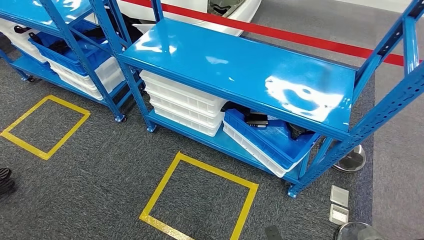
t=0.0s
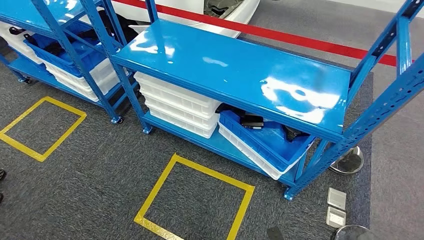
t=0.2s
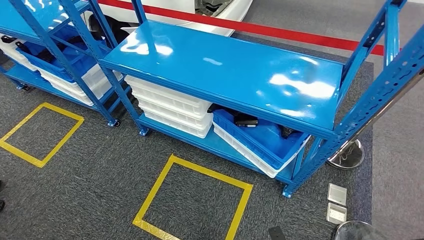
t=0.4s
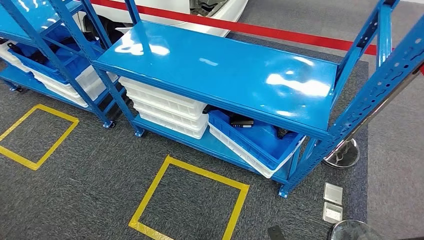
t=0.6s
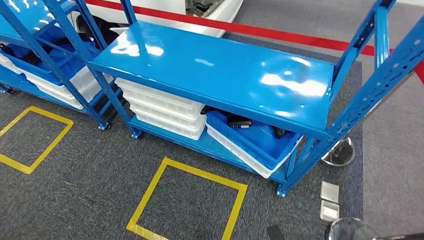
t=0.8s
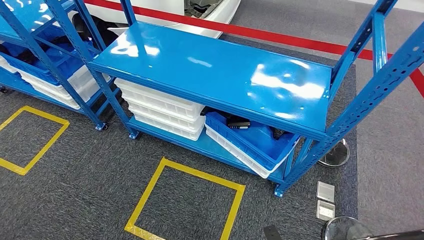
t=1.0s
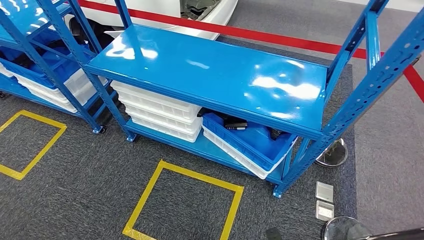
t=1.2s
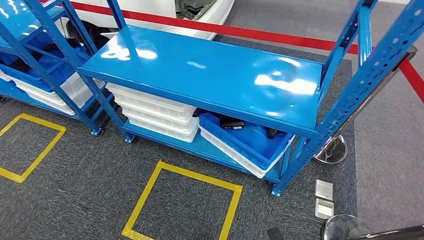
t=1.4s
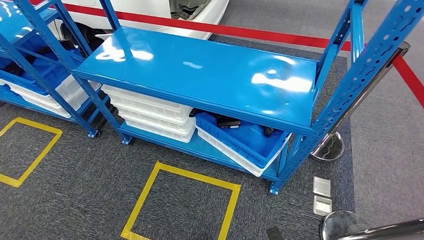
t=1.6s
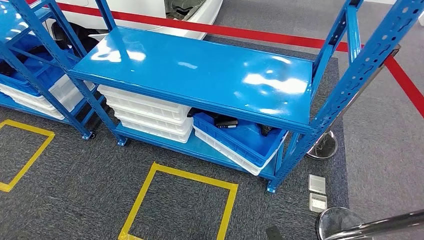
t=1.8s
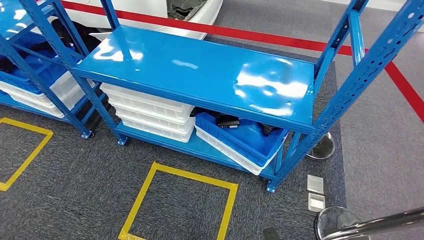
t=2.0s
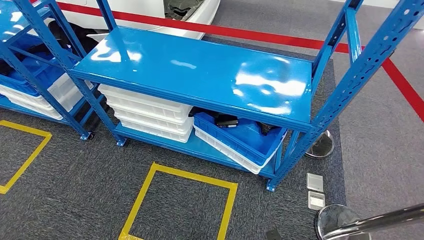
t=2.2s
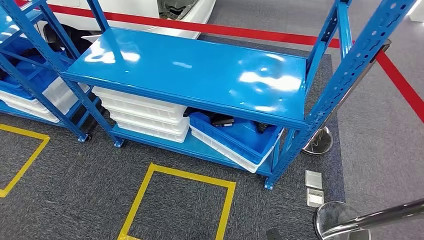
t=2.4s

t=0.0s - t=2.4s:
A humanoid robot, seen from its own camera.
Step, t=0.0s - t=2.2s: Move to the initial position of the shelf.
